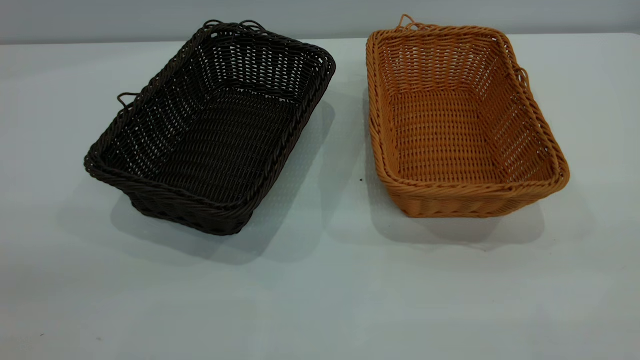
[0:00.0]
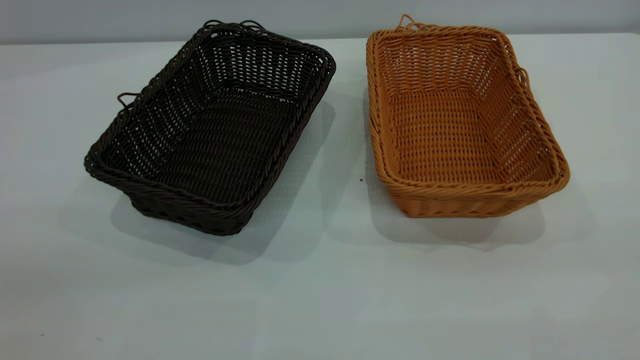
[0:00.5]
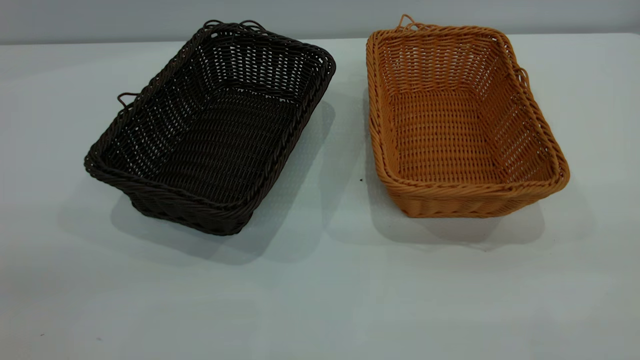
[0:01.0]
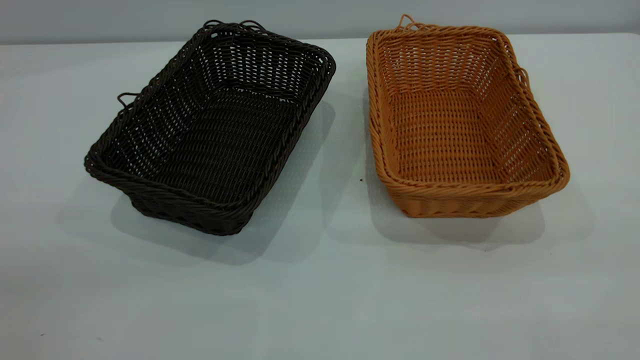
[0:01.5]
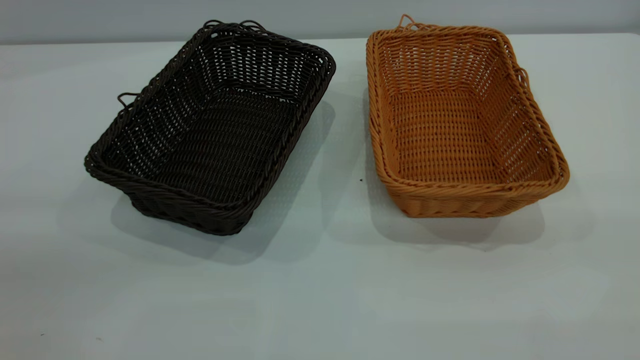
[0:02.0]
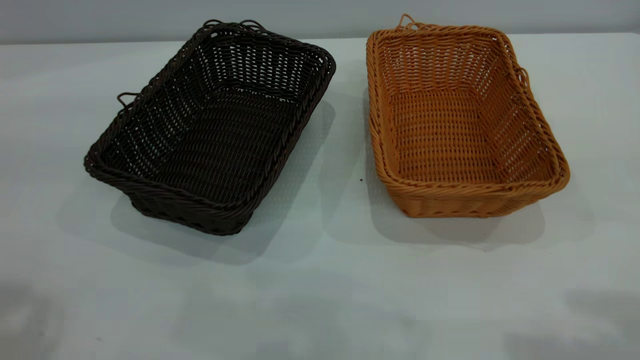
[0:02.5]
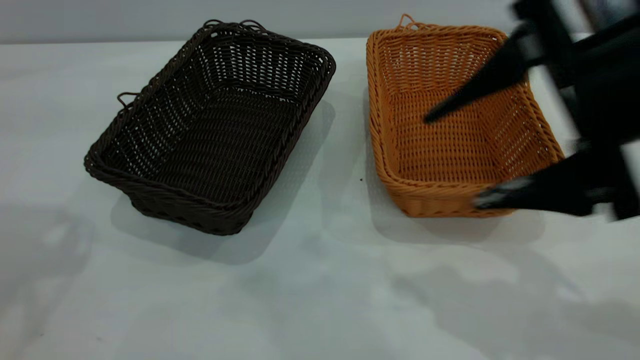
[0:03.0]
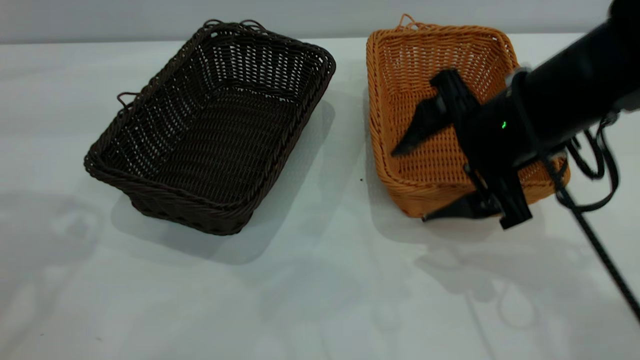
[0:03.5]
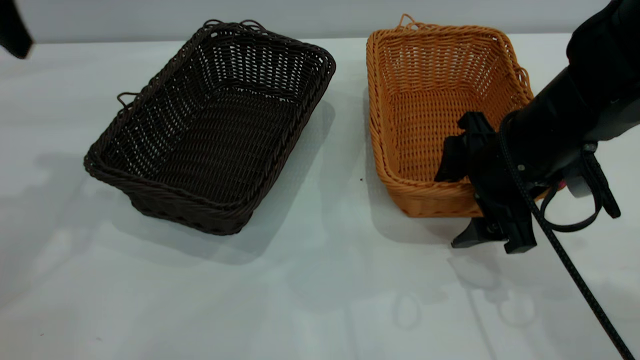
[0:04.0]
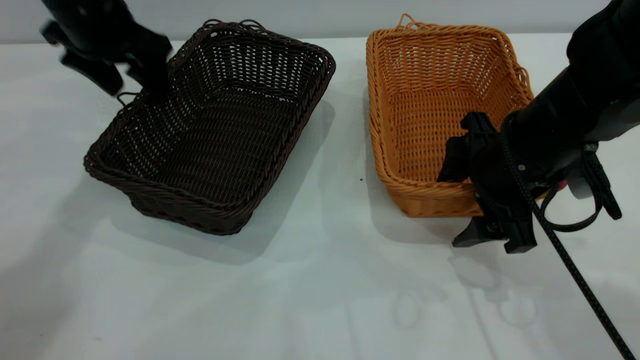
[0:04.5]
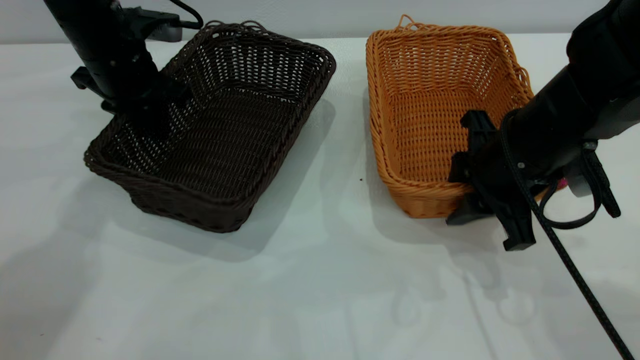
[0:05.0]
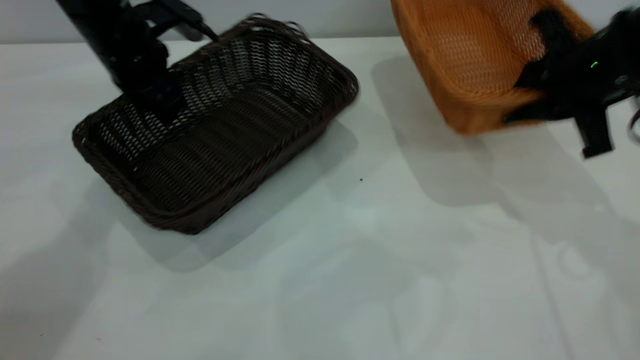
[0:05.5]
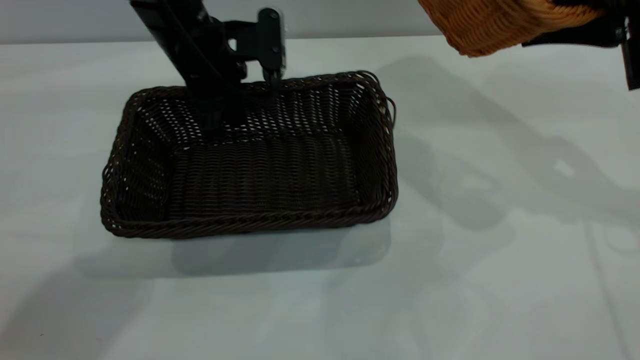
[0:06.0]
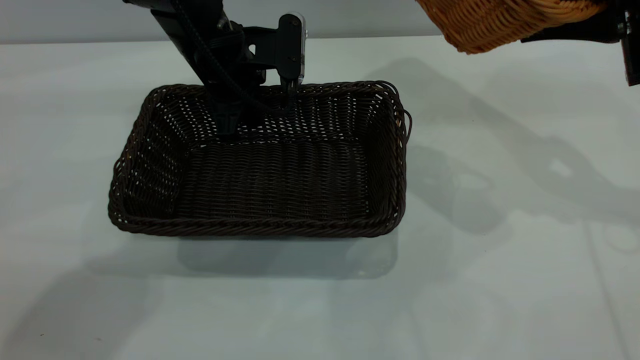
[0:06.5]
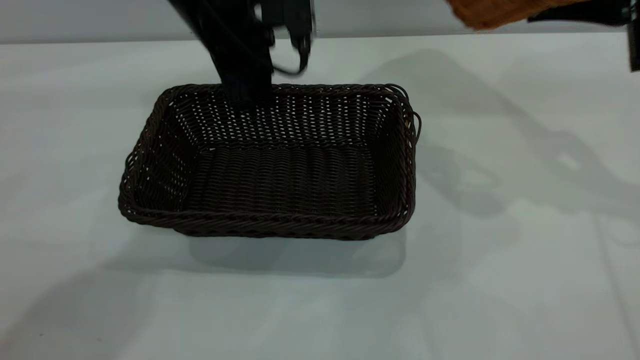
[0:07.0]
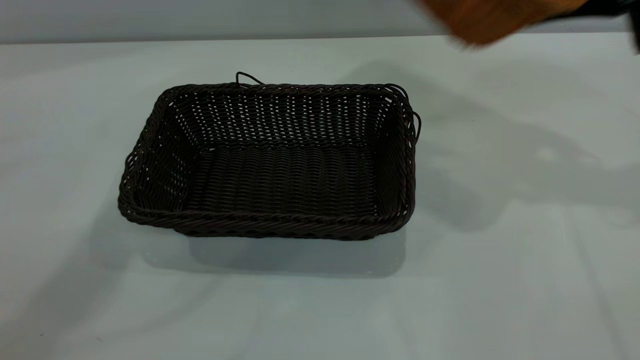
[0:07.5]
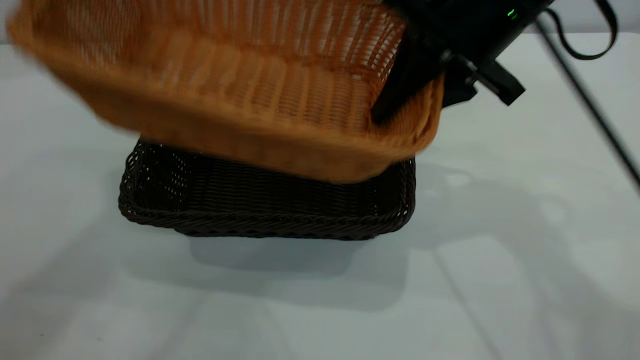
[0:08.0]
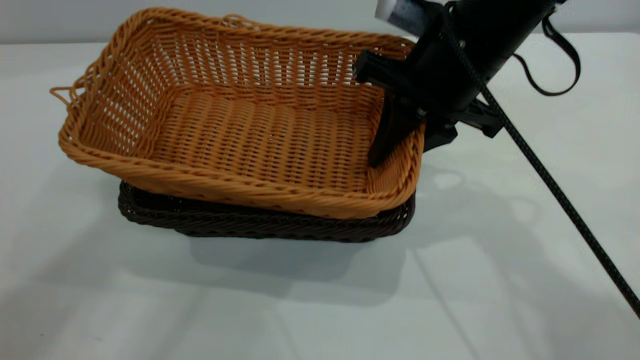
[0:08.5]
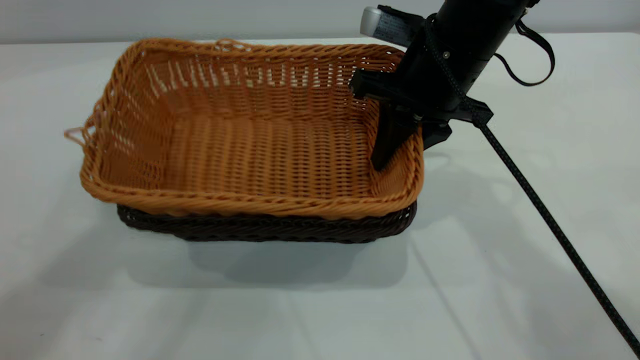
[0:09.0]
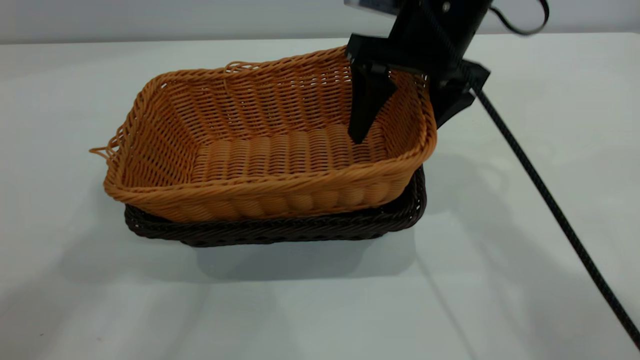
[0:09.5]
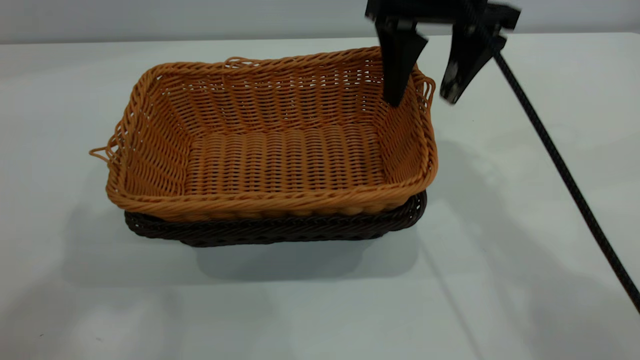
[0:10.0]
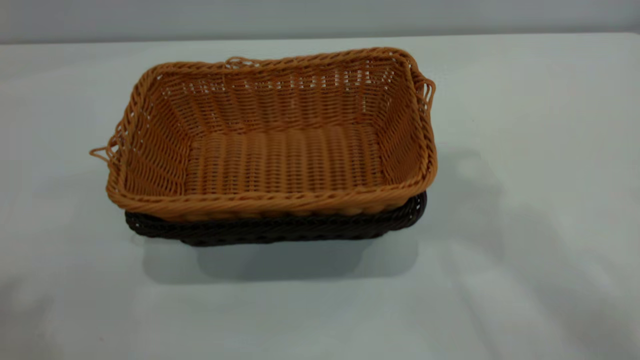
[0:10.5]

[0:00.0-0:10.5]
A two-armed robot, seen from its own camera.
Task of the whole recording: the left gripper grasp the black basket and place it in the center of the table, the right gripper grasp the brown basket and place it inside the black one.
Step, 0:00.0 to 0:05.5: Pick up the light basket with the right gripper.
Step, 0:06.0 to 0:07.0: Move the dark basket to the center of view.
Step, 0:07.5 to 0:10.0: Place the light basket on the dark basket.
0:02.0 to 0:04.0: The left gripper shifts approximately 35 cm forward; the right gripper shifts about 40 cm forward and downward.
0:04.0 to 0:06.5: The right gripper shifts roughly 20 cm upward, to the right and forward, and closes up. Meanwhile the left gripper is displaced to the right, downward and forward by approximately 25 cm, and closes its fingers.
0:06.5 to 0:08.5: The right gripper travels to the left by approximately 20 cm. Meanwhile the left gripper goes approximately 40 cm upward, and opens.
0:08.5 to 0:10.5: The left gripper shifts approximately 15 cm backward and to the left. The right gripper is displaced upward by about 30 cm, and opens.
